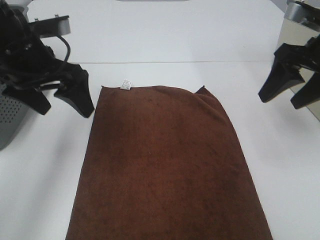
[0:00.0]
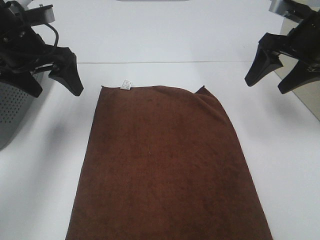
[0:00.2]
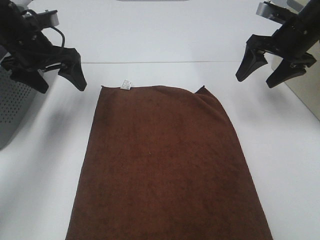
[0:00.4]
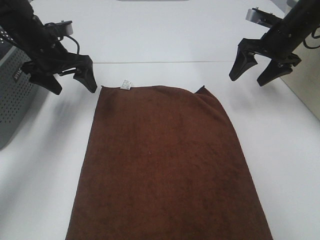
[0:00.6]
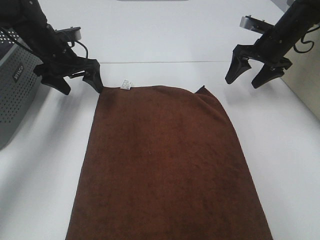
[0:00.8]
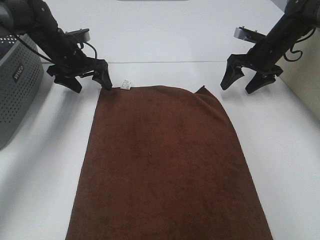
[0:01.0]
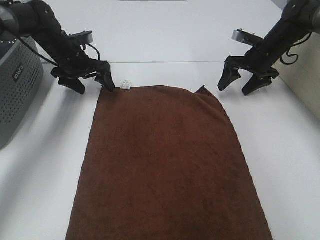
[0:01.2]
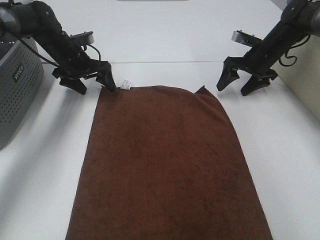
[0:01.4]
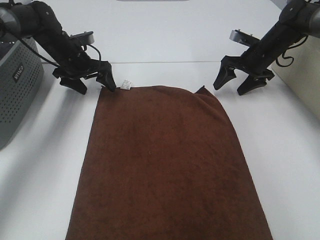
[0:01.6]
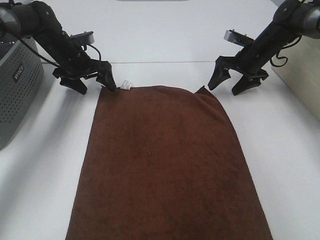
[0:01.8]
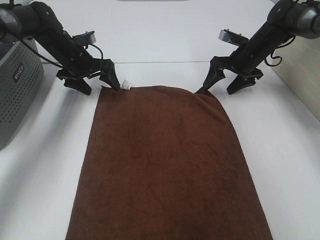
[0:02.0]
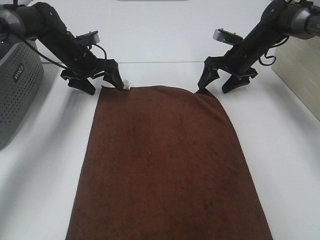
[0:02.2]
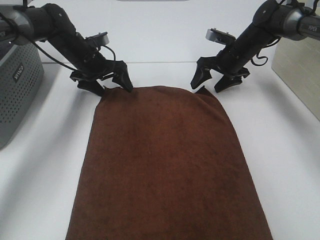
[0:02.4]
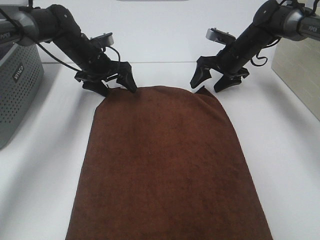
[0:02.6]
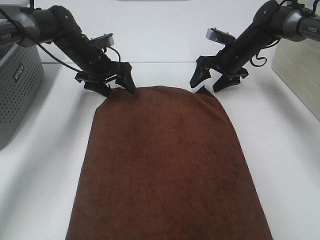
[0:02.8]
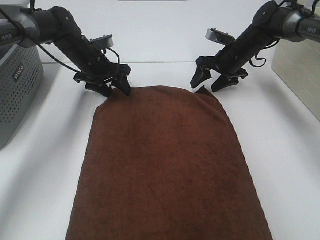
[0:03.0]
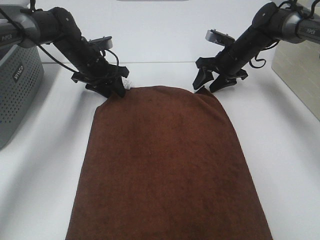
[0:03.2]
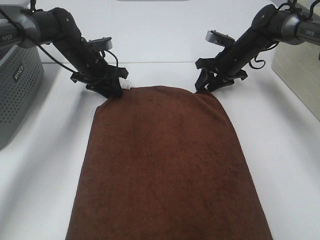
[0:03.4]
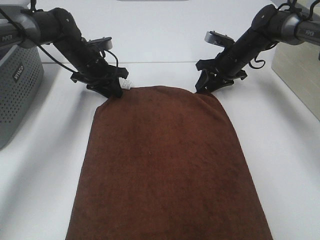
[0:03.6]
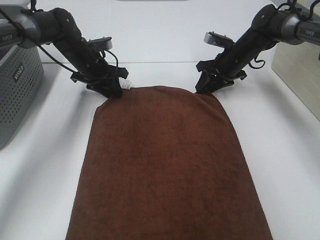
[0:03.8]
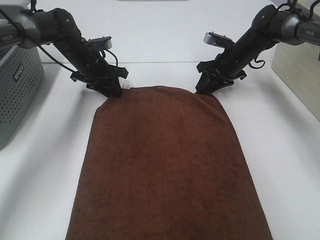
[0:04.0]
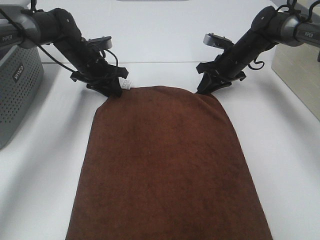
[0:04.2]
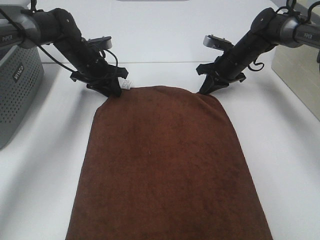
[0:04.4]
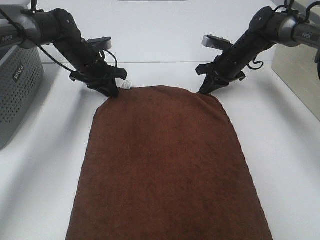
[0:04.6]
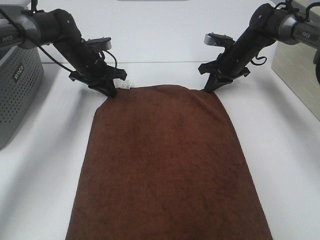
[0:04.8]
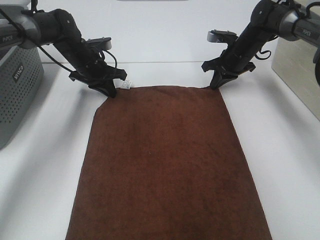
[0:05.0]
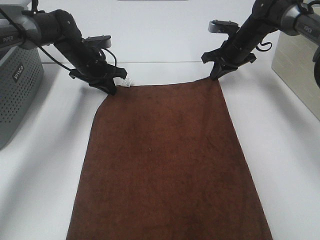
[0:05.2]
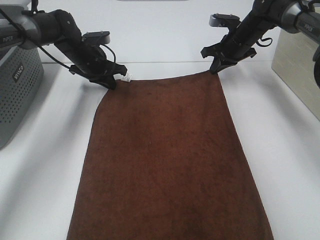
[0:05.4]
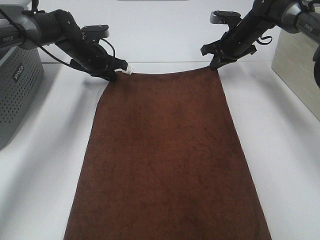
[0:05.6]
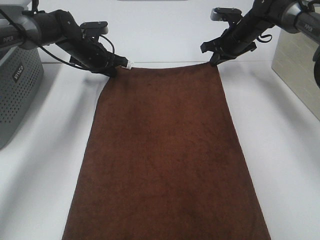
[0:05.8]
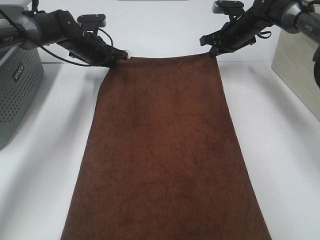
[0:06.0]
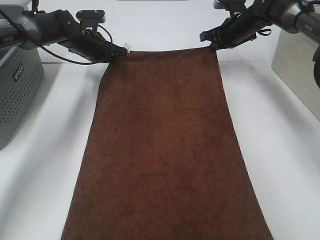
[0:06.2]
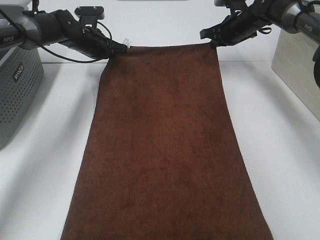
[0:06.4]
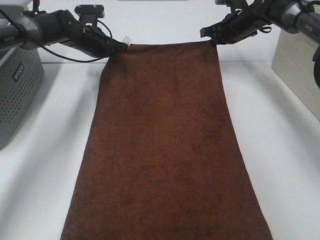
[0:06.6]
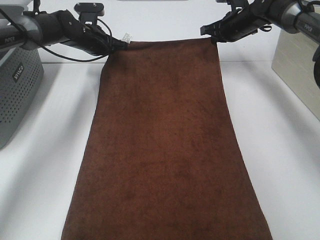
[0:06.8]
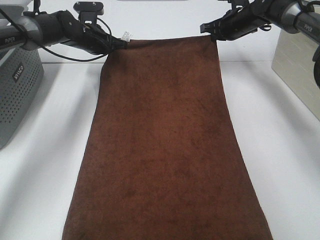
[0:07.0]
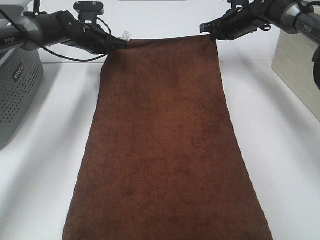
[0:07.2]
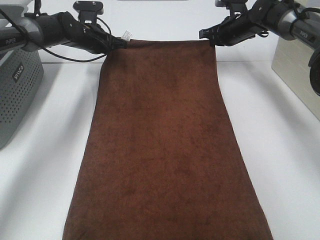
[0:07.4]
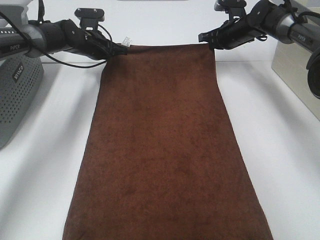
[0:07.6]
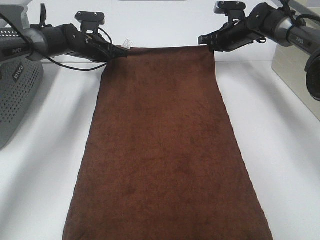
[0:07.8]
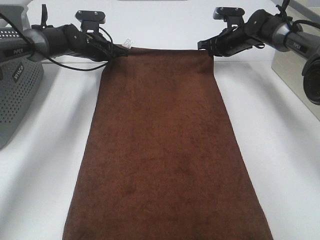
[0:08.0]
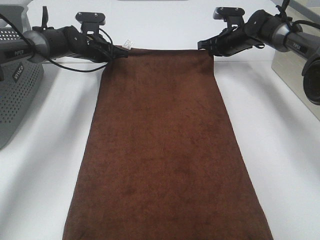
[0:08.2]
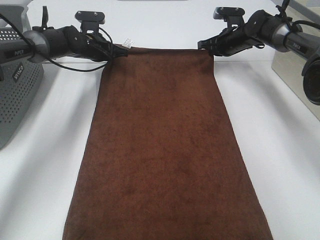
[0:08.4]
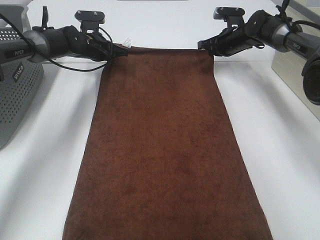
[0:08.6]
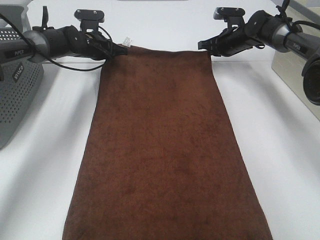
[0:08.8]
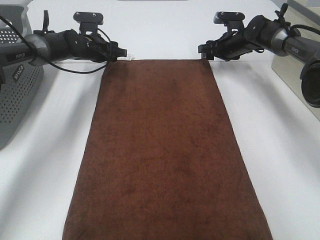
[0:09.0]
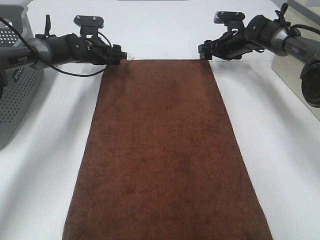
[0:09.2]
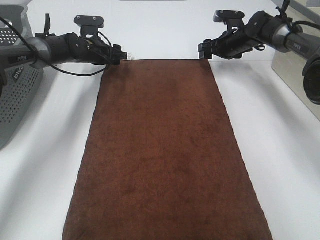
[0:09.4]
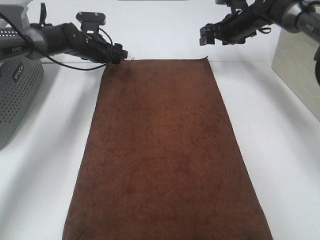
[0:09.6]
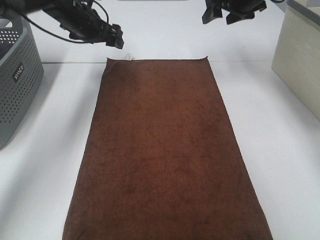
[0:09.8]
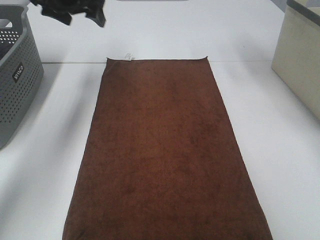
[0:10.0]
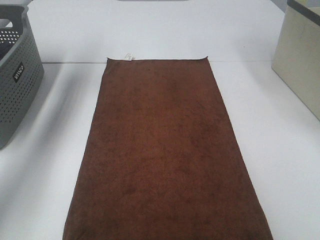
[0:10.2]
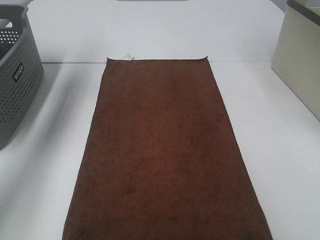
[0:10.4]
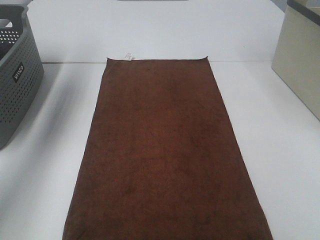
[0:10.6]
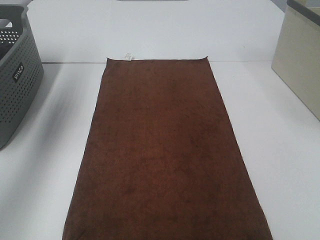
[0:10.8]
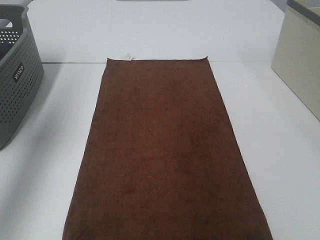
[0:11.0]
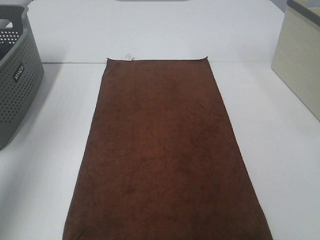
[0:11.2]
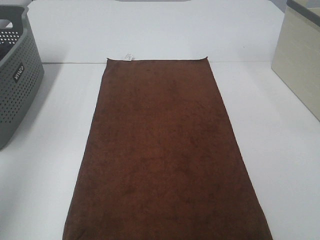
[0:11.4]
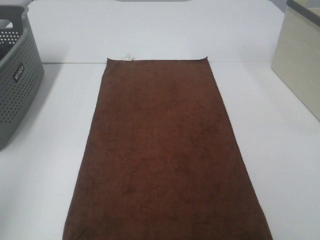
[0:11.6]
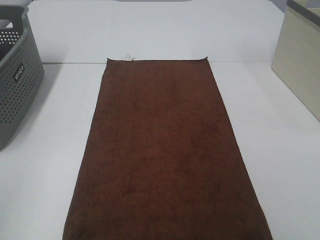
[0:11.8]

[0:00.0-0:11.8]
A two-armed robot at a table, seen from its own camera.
Task of the whole recording: Remove the towel and place it.
Step, 0.0 to 3.6 s: Left hand:adjust the brown towel.
Step, 0.0 to 3.6 s: Right hand:adjust the brown towel.
0.0 to 1.4 s: Both grippers move forward and downward, approximately 25 cm.
1.4 to 3.0 s: The right gripper is displaced to the left by some 5 cm.
3.0 to 4.4 s: The right gripper closes up.
4.4 to 6.0 s: The right gripper is displaced upward by approximately 5 cm.
6.0 to 8.8 s: The grippers stay close to where they were, moving slightly.
8.8 to 10.4 s: The two grippers go approximately 30 cm upward and backward. The right gripper opens its fingers; the left gripper opens.
10.4 to 11.8 s: The left gripper heads backward, covering some 40 cm.

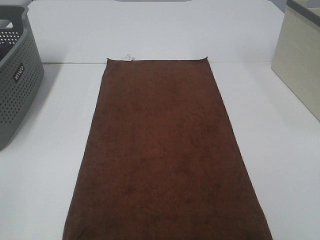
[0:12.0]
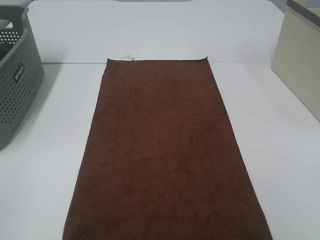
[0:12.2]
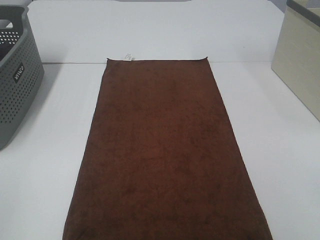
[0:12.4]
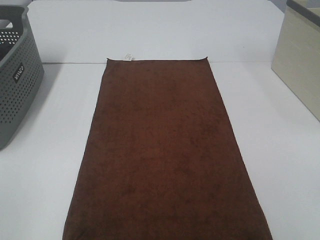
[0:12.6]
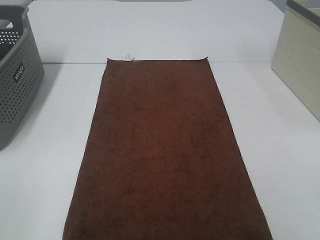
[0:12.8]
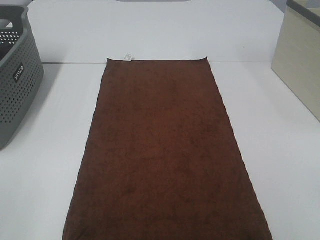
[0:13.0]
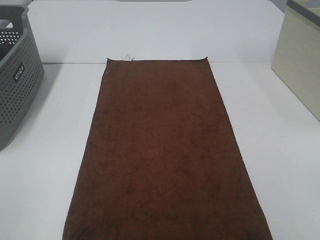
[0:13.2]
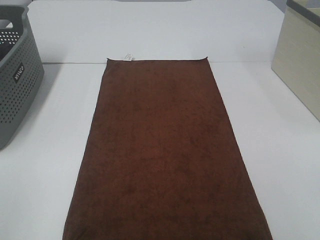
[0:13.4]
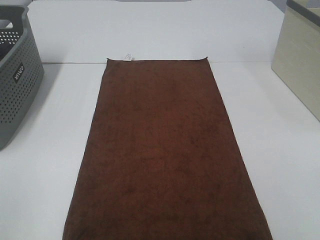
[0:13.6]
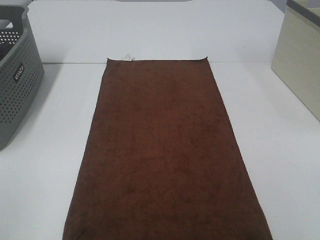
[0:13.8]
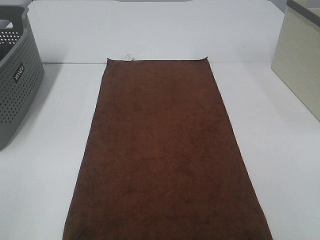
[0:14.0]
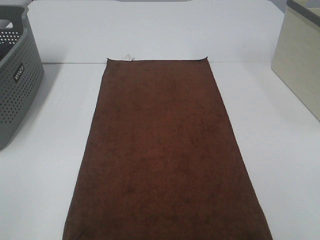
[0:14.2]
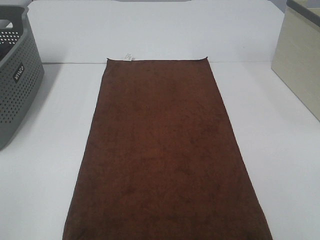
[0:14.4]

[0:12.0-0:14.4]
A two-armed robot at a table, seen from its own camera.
Task of the whole recording: Remove the towel and place it.
13.2 to 14.4 s: Neither gripper changes place.

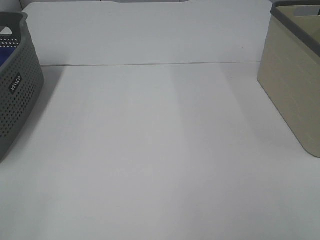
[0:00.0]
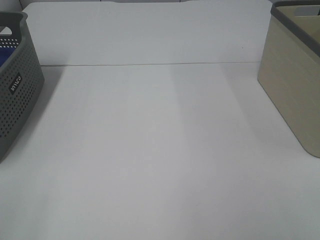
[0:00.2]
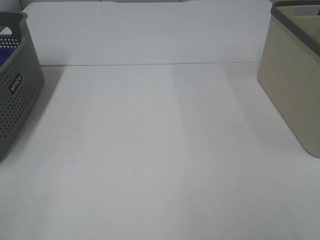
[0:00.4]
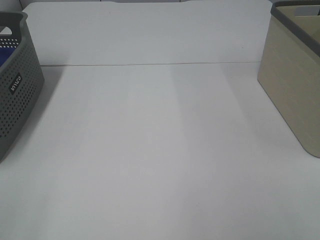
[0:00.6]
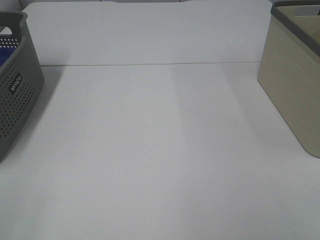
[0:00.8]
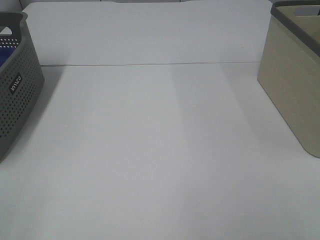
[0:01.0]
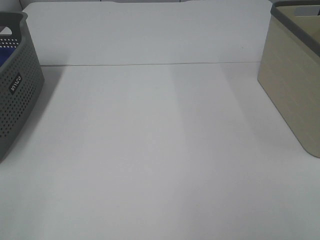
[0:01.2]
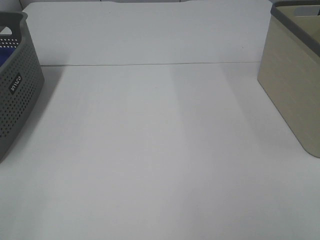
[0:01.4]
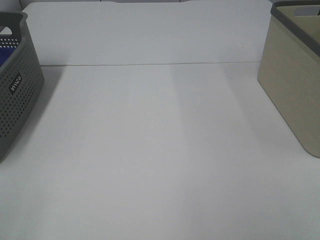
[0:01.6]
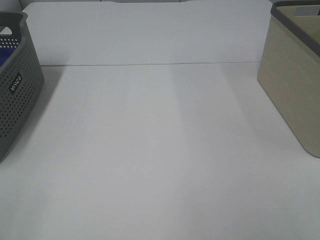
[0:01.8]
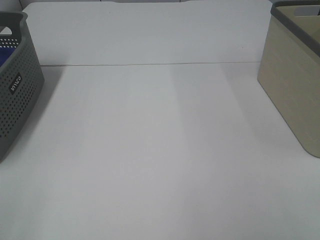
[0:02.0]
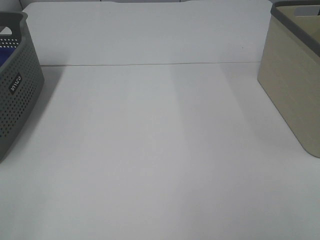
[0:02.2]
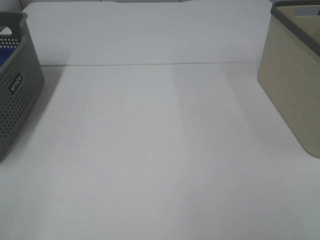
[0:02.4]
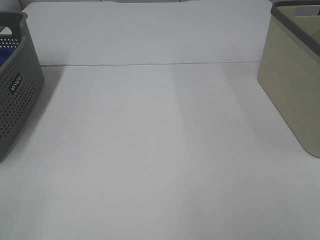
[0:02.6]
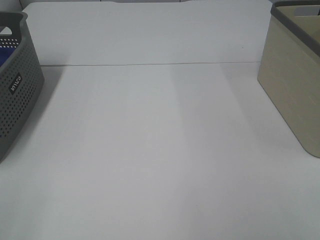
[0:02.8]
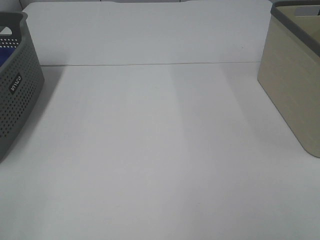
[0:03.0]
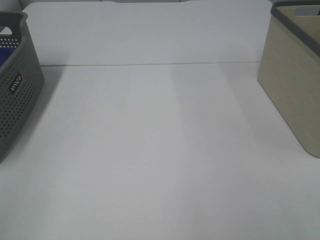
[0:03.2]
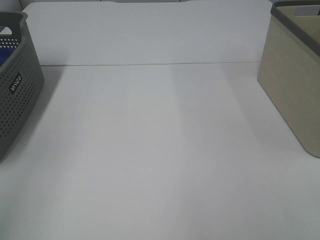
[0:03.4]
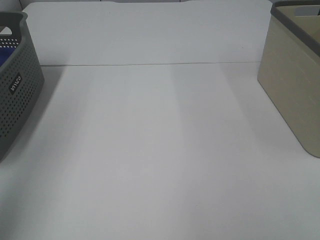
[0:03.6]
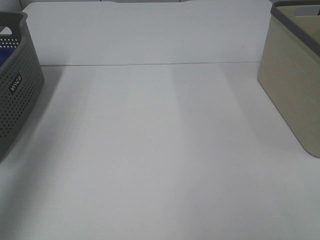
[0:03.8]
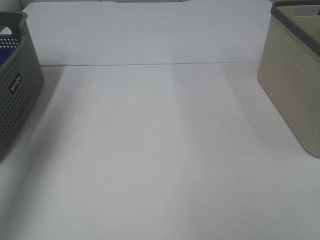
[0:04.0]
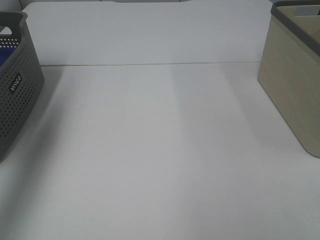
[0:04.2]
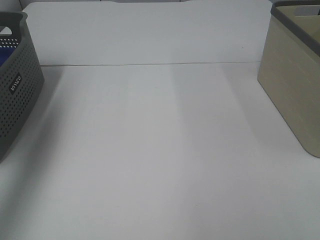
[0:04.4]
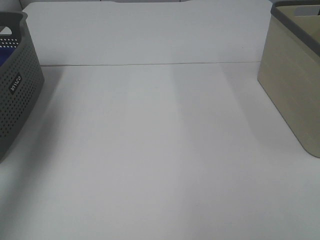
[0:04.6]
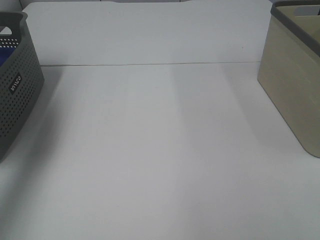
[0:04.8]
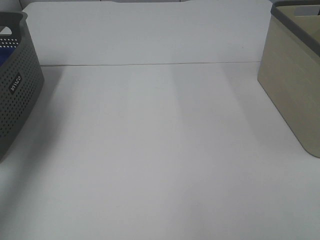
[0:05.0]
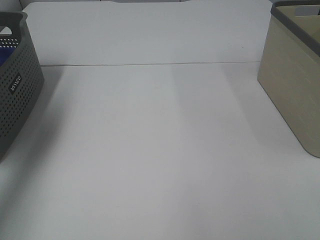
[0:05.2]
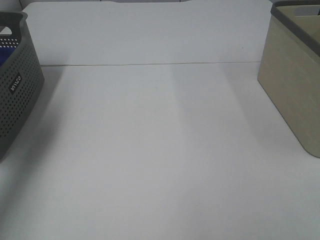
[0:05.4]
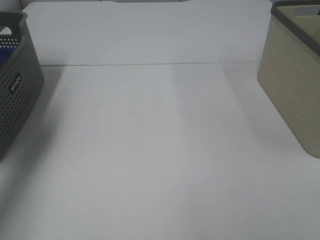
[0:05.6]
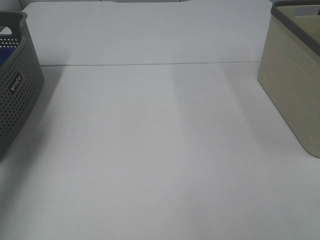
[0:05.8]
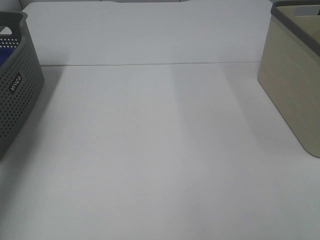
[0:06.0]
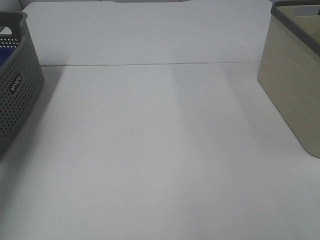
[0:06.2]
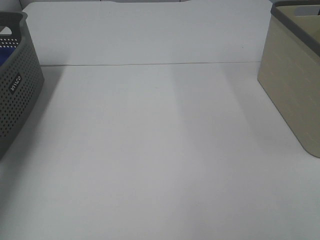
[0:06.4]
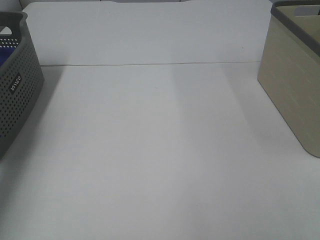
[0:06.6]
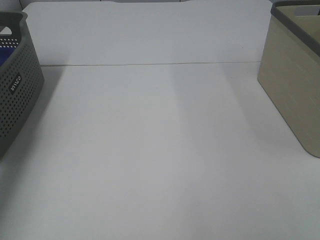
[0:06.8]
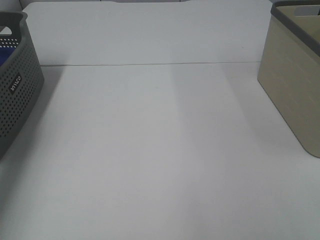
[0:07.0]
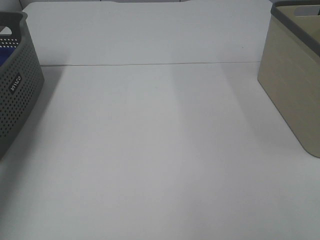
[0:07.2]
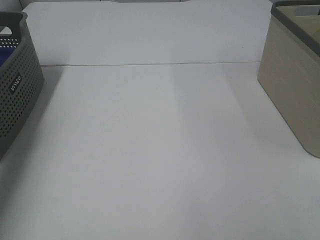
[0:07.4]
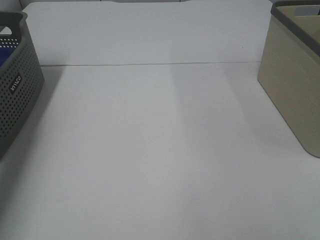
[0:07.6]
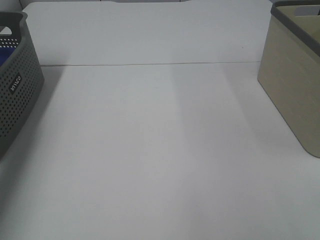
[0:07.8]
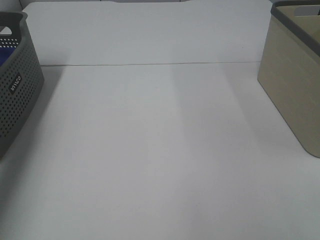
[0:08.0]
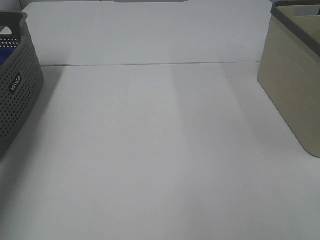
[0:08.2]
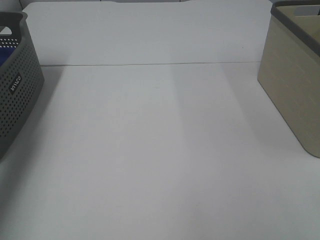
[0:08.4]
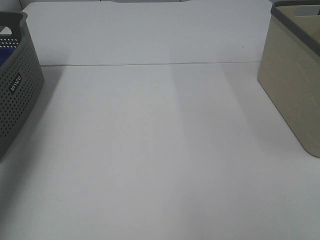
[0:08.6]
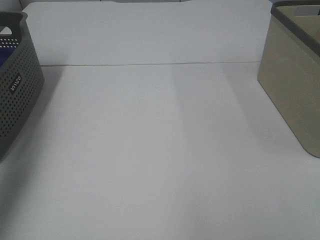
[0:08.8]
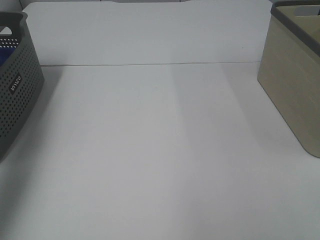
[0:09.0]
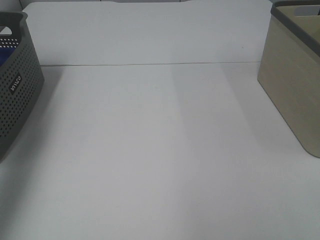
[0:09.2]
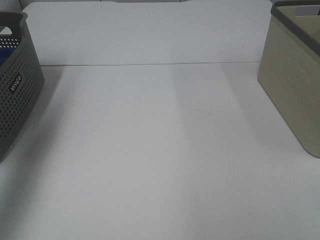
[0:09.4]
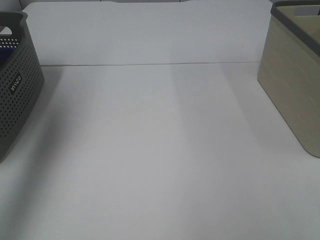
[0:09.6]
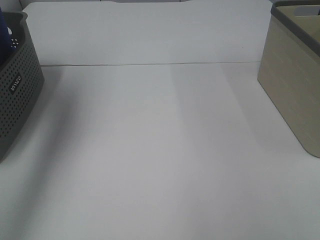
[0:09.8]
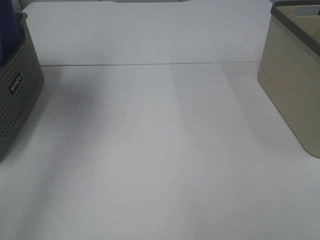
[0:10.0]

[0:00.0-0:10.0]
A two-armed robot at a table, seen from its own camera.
Task of the whole recording: Remove the towel and place it.
0.0 to 2.8 s: Neither gripper changes place.
2.8 to 4.2 s: The left gripper goes about 30 cm forward.
4.2 to 5.8 s: The left gripper travels downward by some 20 cm.
8.6 to 10.0 s: The left gripper goes some 25 cm upward and to the right.
